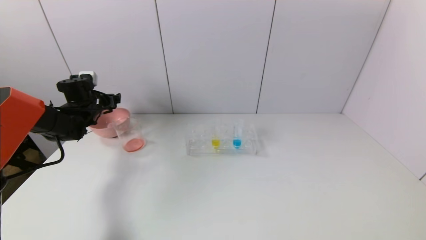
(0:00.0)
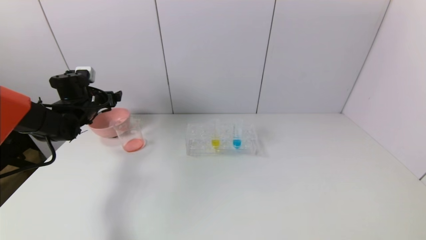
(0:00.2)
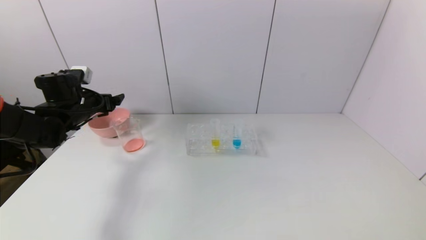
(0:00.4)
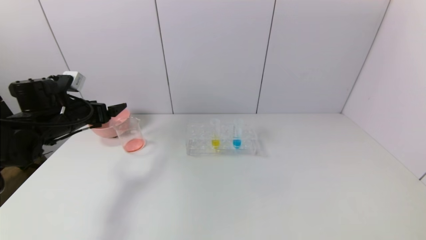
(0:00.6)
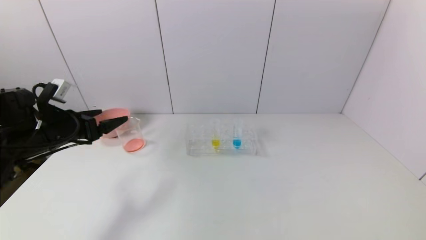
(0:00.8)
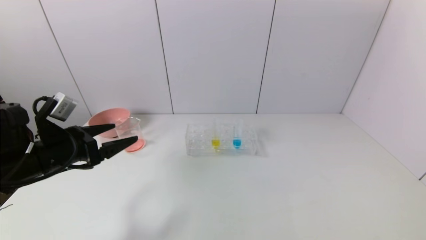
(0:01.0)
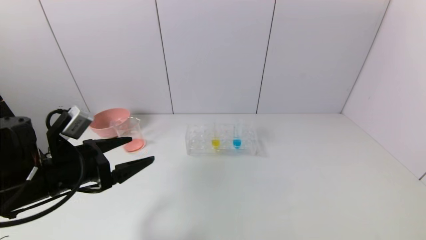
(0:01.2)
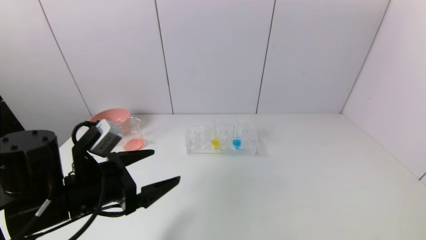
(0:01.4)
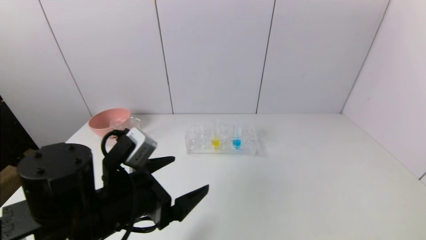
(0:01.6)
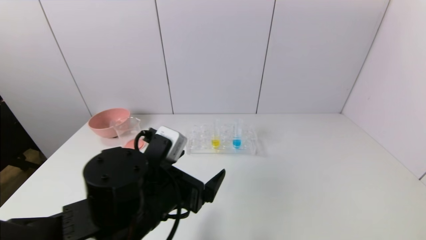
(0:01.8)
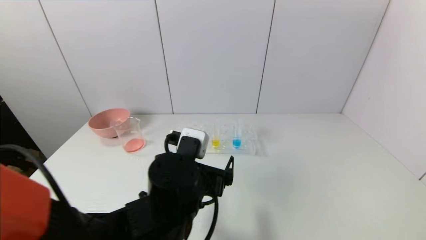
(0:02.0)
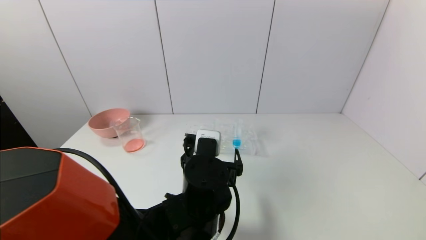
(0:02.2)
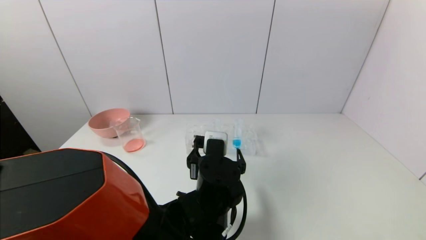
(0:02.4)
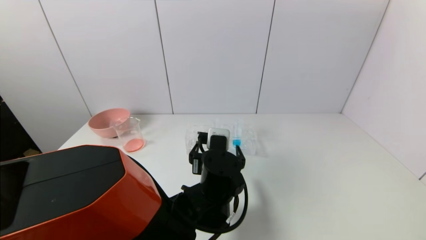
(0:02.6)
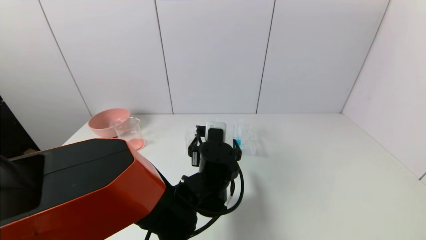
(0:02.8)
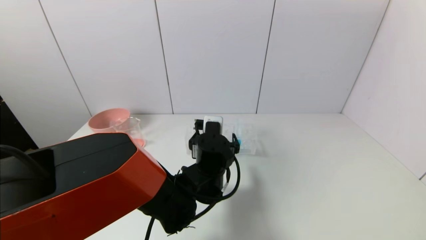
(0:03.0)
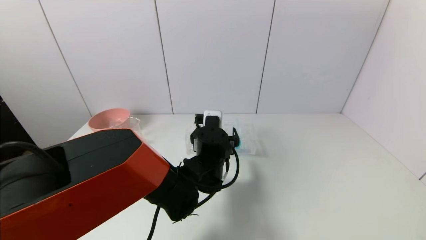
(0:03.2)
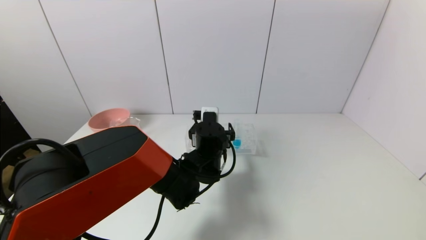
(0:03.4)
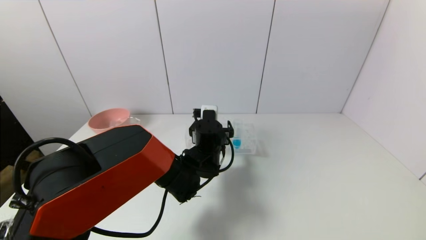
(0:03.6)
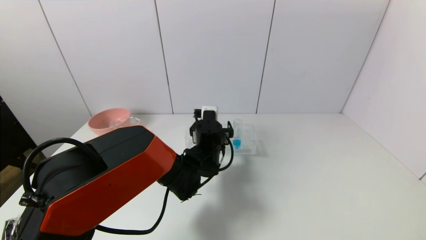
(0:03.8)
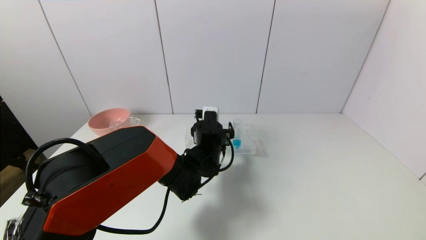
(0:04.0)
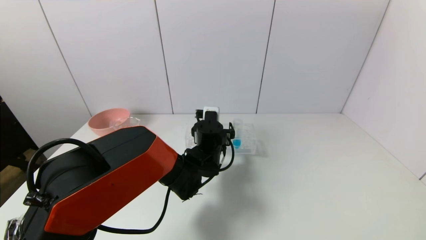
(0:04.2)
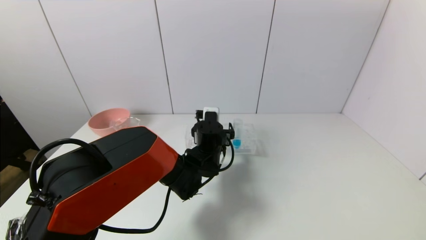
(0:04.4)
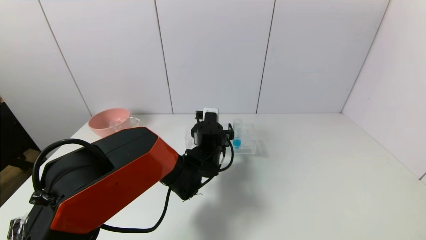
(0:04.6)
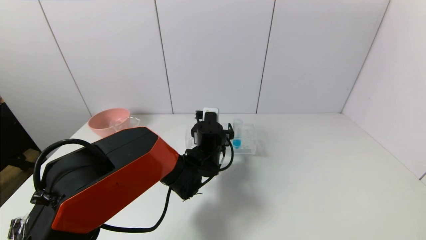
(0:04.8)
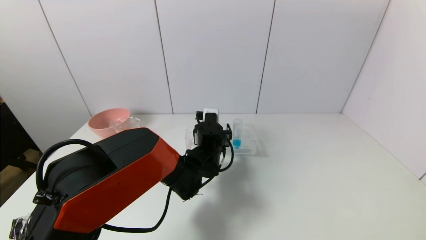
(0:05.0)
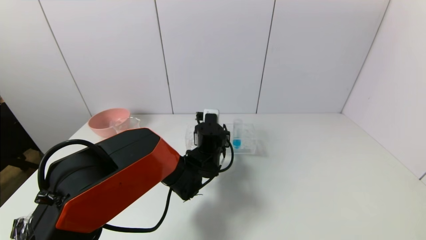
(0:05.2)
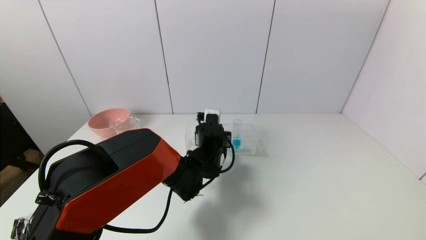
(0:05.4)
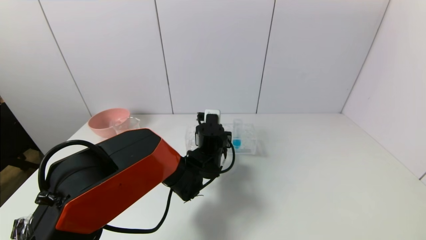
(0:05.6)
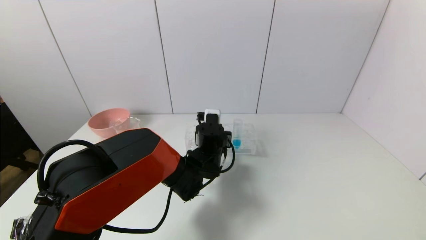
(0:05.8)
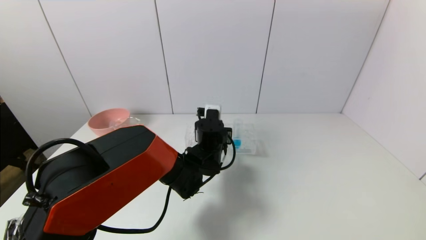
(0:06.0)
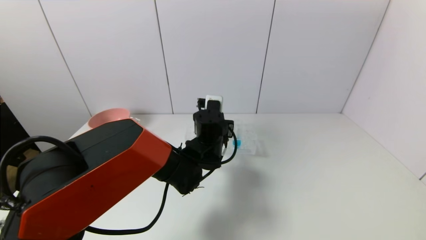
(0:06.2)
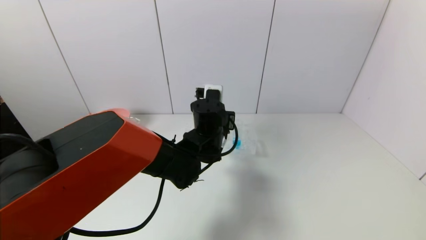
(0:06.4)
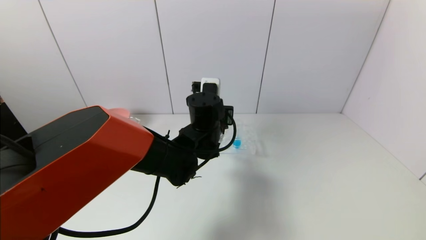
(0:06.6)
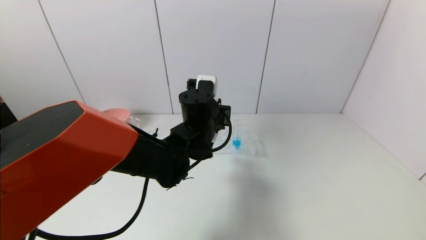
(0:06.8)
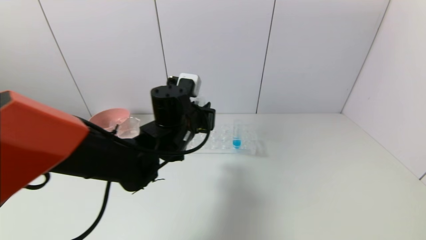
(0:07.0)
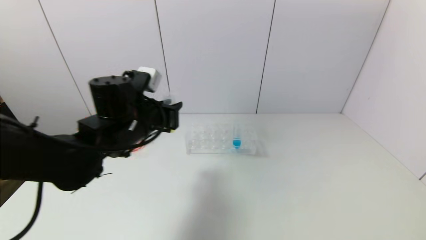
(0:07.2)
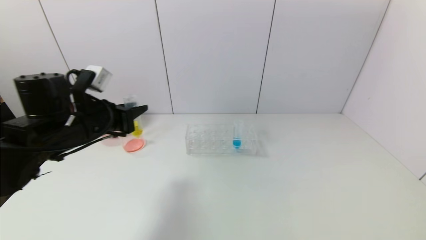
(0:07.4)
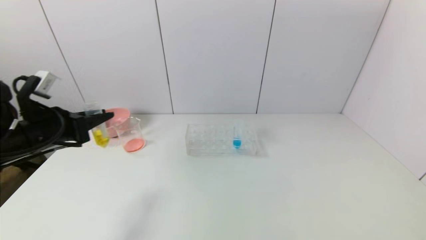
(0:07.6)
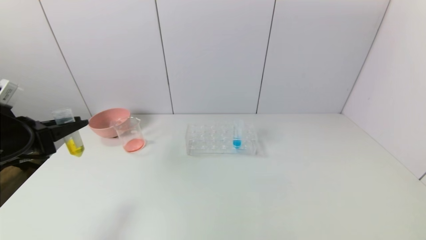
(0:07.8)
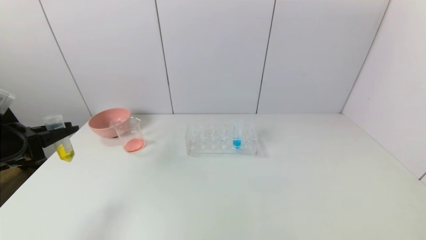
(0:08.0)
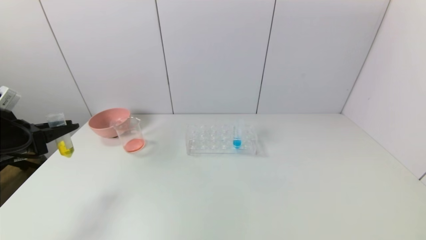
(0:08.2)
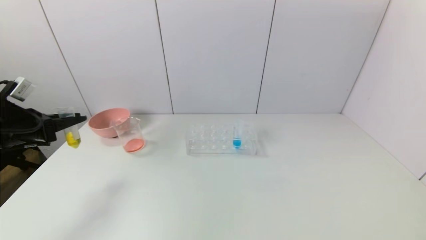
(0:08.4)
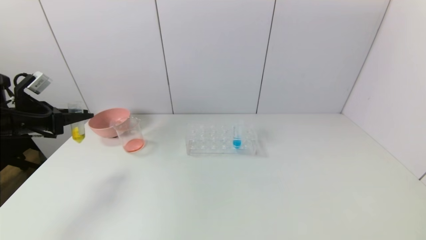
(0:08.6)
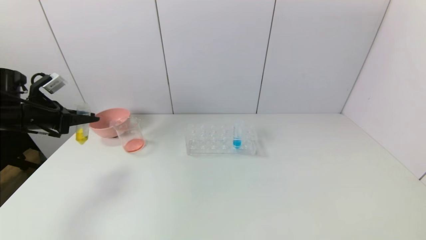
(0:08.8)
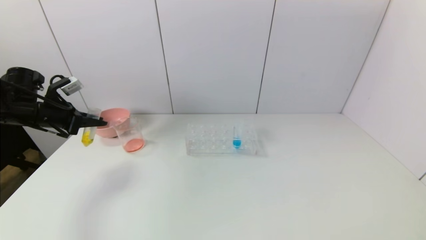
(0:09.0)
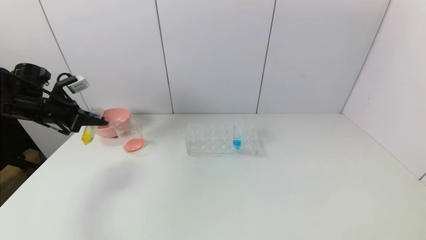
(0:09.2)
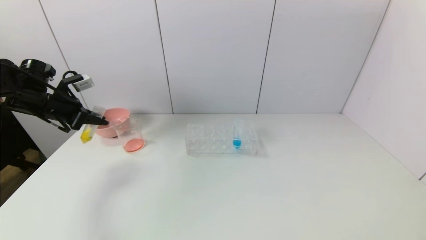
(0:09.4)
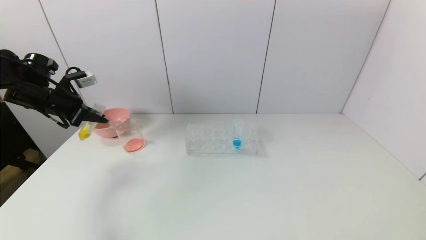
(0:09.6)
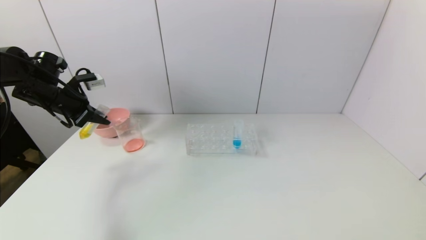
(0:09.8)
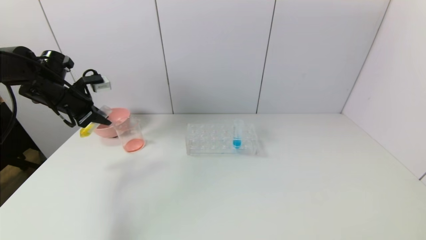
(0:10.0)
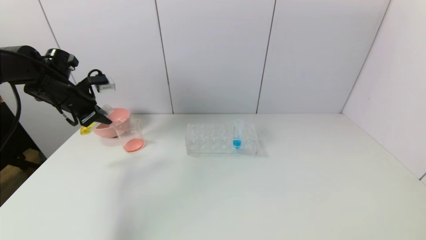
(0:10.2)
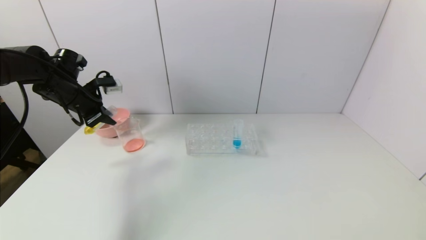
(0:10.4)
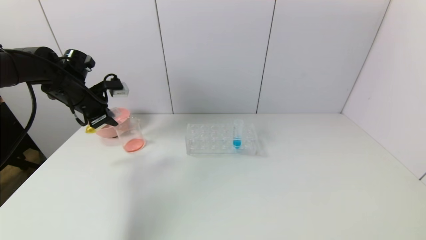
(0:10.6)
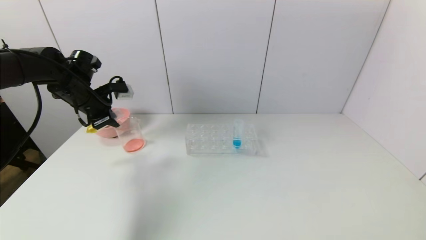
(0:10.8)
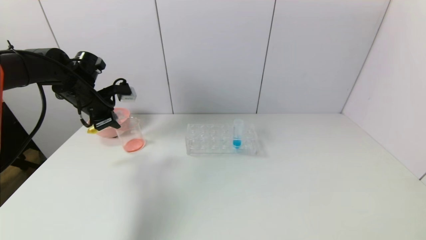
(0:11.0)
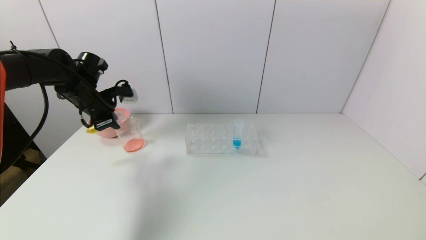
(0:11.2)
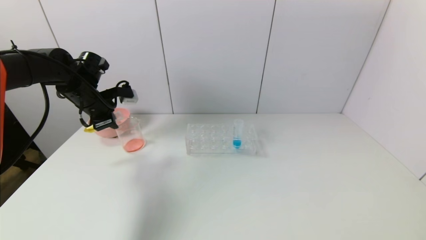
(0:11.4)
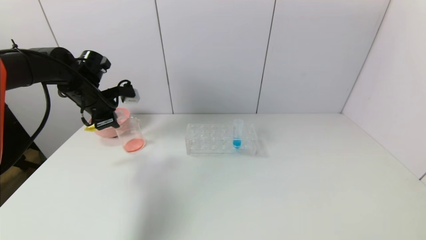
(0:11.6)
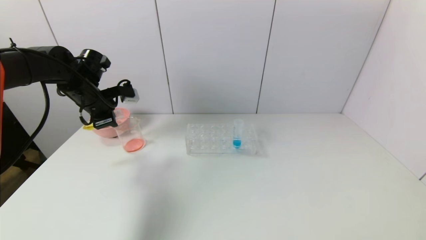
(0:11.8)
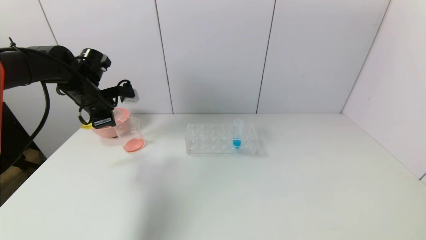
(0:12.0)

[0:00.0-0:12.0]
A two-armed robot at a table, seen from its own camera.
Task of the whole recording: pick up the test tube with yellow pigment and the test tube with red pigment by grippers and pour them into the beaker.
Step, 0:00.2 to 0:05.6: Grasp the yellow reagent with the left gripper.
0:00.0 to 0:01.6: The left gripper travels backward and to the right by approximately 35 cm.
0:01.6 to 0:03.0: The left gripper goes about 20 cm to the right, forward and downward.
0:03.0 to 0:04.4: The left gripper shifts approximately 5 cm forward.
0:04.4 to 0:06.0: The left gripper closes its fingers.
0:06.0 to 0:07.6: The left gripper shifts approximately 30 cm to the left.
0:07.6 to 0:09.0: The left gripper travels forward and to the left by about 15 cm.
0:09.0 to 0:10.4: The left gripper travels to the right by approximately 5 cm.

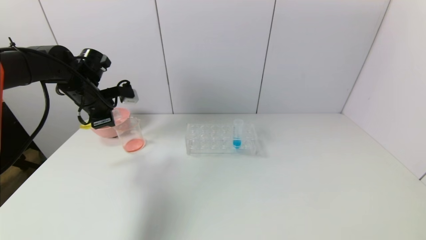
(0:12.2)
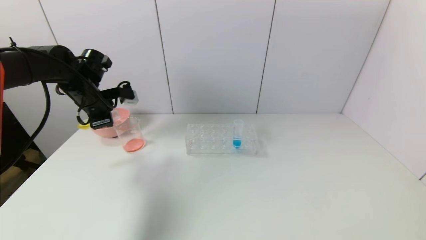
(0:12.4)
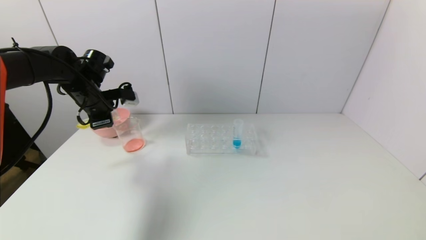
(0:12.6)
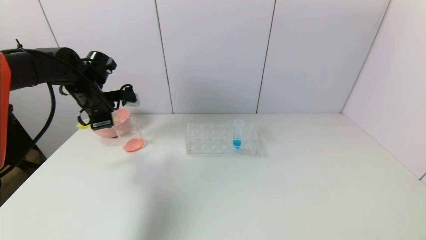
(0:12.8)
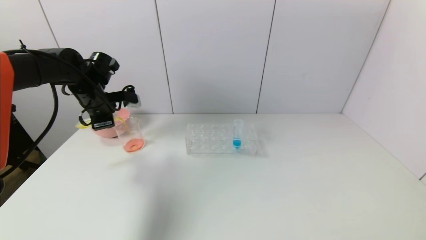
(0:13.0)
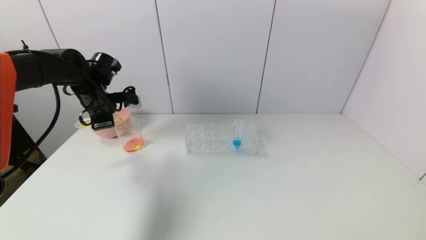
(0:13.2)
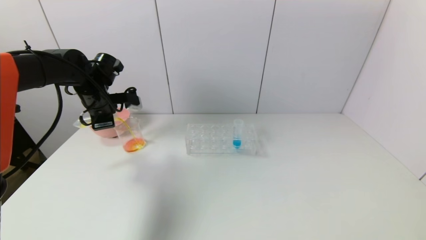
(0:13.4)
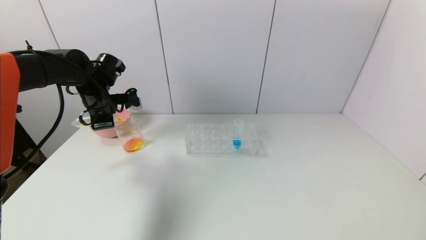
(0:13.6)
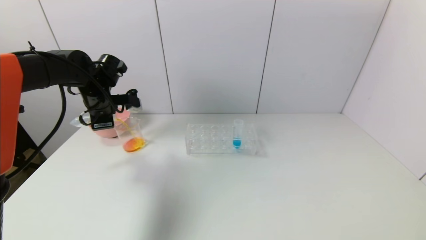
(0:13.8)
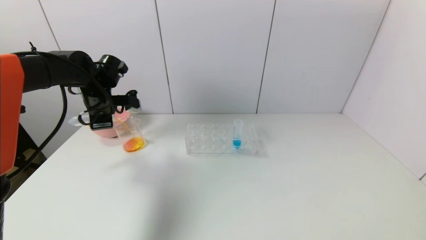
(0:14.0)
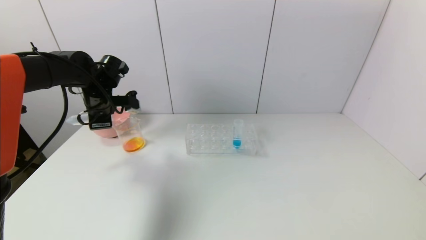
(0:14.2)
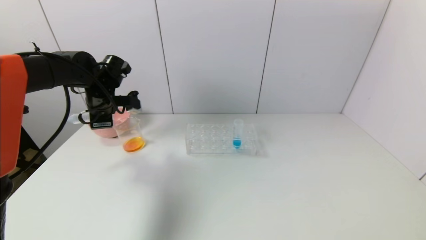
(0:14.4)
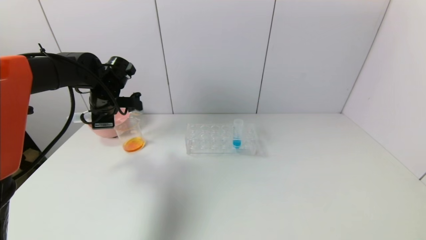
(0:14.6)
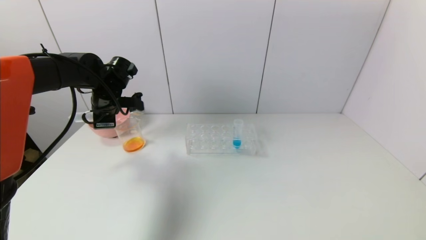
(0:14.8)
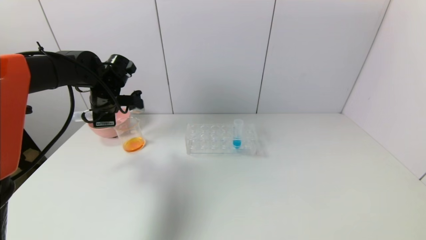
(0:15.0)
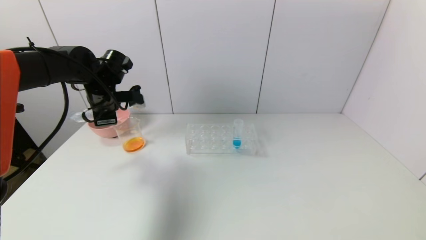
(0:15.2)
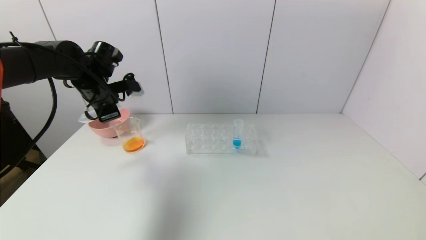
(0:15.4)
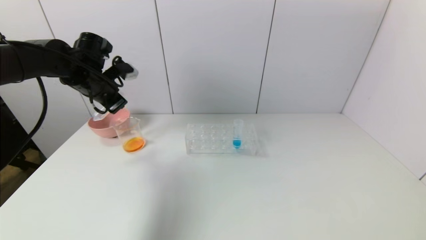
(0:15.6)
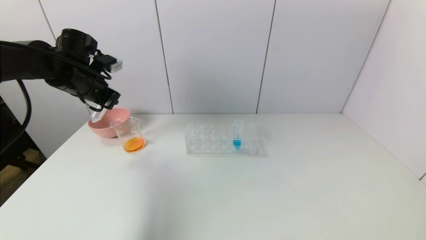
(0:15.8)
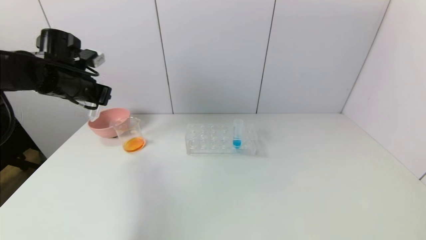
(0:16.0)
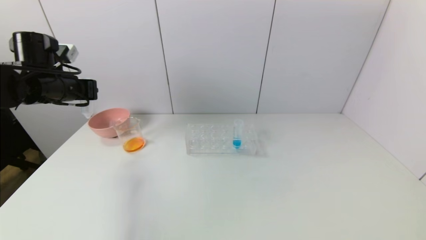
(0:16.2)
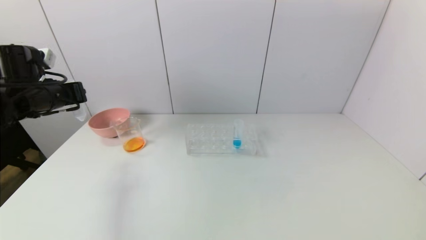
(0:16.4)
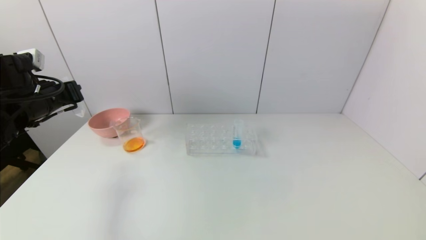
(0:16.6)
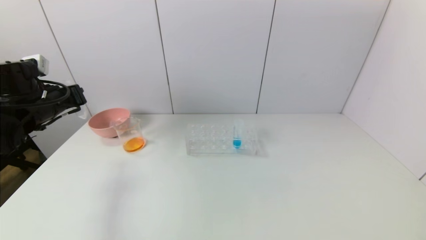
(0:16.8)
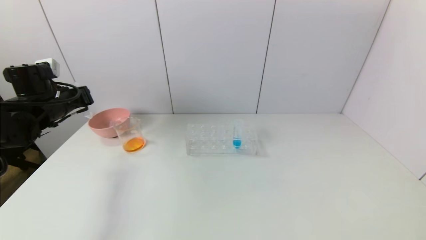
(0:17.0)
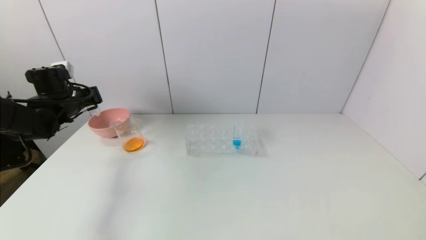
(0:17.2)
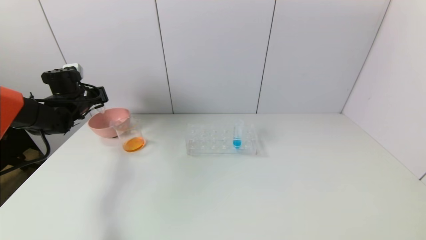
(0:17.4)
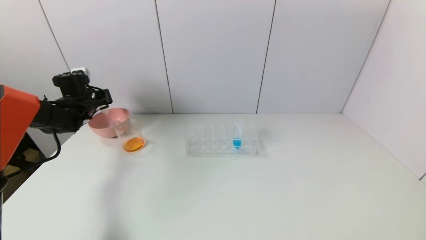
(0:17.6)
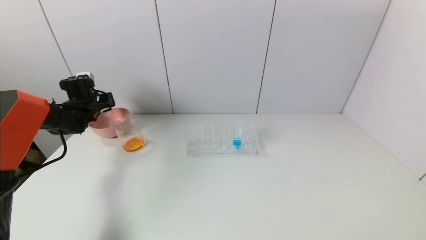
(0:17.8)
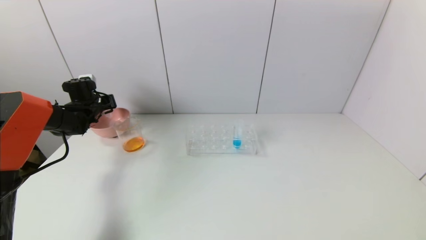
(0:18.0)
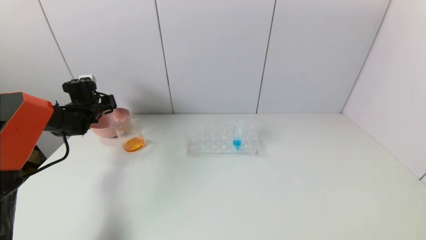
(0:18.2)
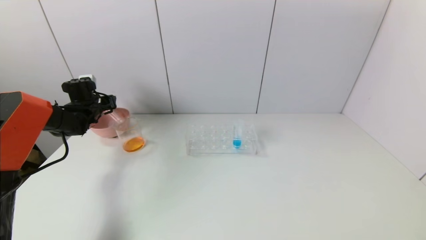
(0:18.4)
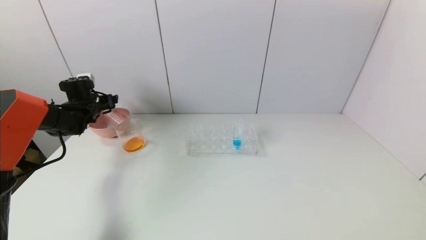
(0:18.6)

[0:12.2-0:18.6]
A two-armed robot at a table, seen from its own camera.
Task of the whole recording: pick up the test tube with yellow pigment and the test tube with red pigment by grippers and pour them into the beaker.
Step, 0:12.2 to 0:14.4: Pour the yellow reagent into the graduated cylinder with the left gripper.
Step, 0:14.6 to 0:18.4: Place the test tube into the pink bowl with the left gripper.
0:12.2 to 0:13.8: The grippers make only small movements.
0:13.8 to 0:15.4: The grippers make only small movements.
0:15.4 to 0:17.0: The left gripper shifts some 10 cm to the left.
0:17.0 to 0:18.6: The left gripper heads forward and downward, covering about 15 cm, and opens.
